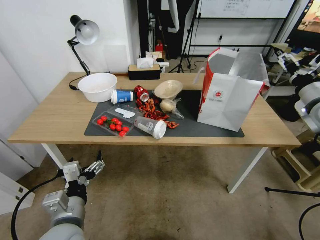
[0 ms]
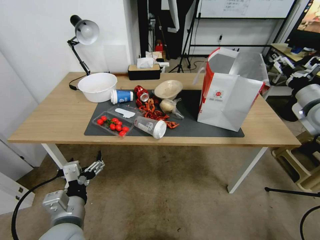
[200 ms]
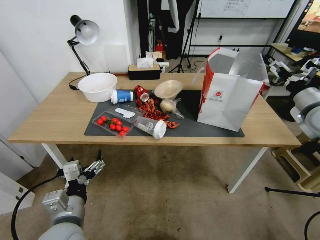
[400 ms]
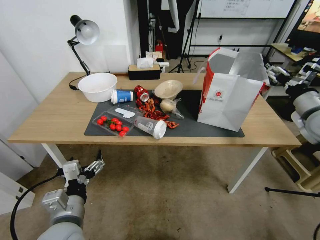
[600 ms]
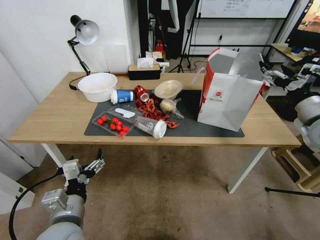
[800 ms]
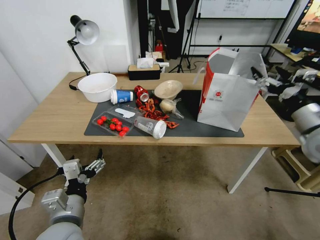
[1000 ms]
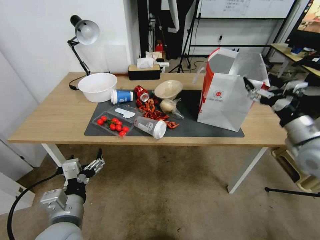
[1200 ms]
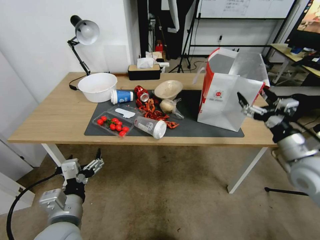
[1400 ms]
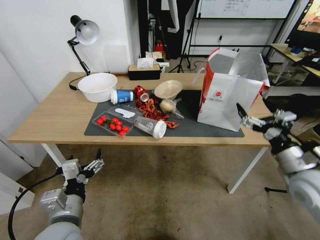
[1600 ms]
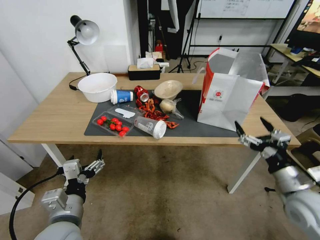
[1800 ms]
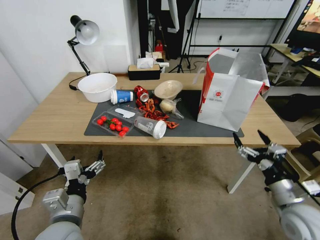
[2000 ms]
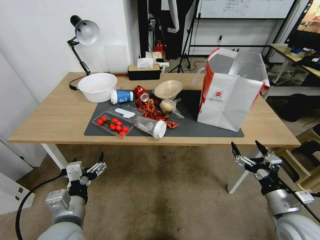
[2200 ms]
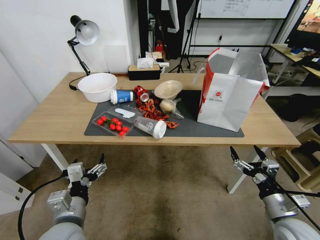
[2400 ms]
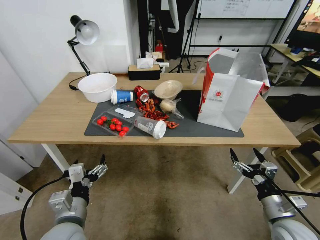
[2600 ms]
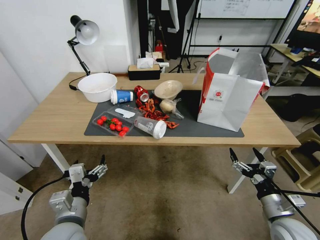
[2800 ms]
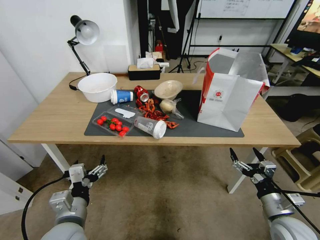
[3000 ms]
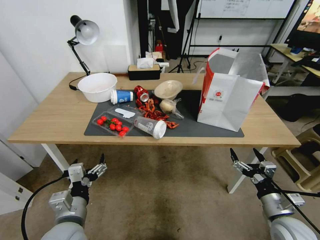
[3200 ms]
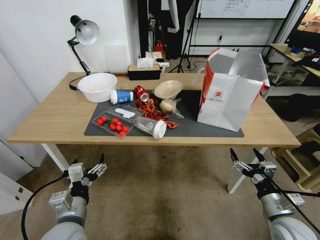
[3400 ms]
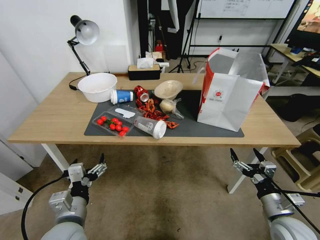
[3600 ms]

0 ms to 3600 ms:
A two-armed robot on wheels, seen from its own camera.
Task of the whole recording: Pick up the food delivery bag from the floor and place it on the table.
0 ms to 1800 ms: The right gripper moves backward, downward and to the left, approximately 25 cm.
1800 ms to 3600 ms: The right gripper heads downward, covering approximately 10 cm.

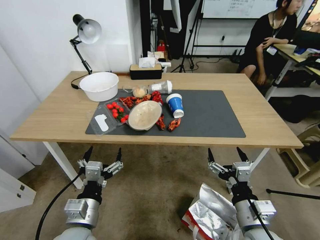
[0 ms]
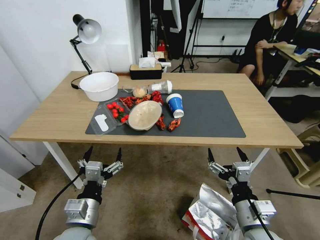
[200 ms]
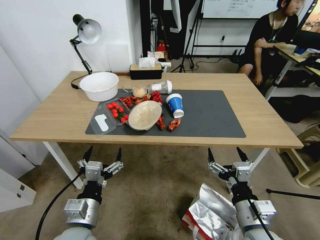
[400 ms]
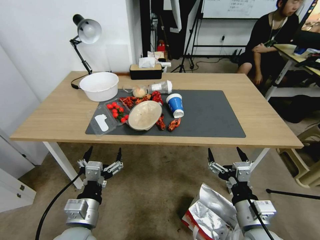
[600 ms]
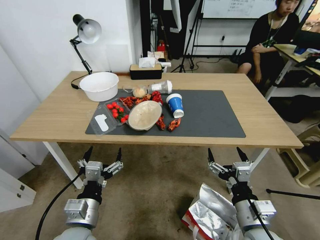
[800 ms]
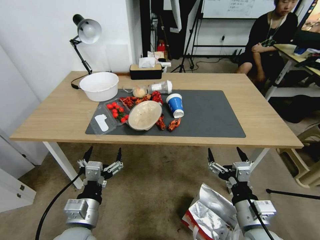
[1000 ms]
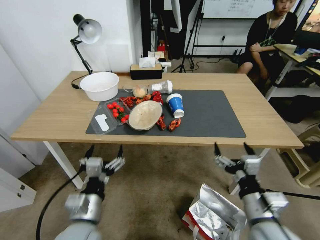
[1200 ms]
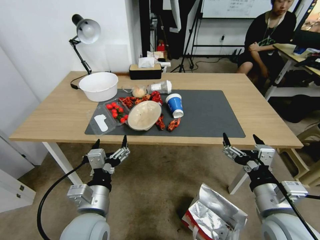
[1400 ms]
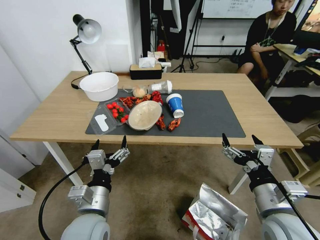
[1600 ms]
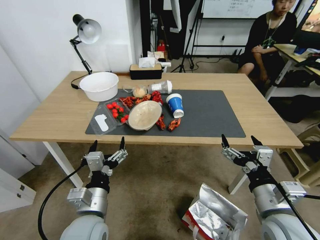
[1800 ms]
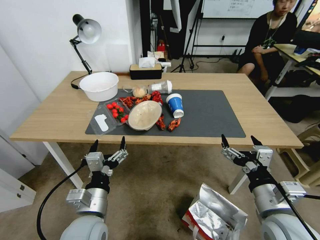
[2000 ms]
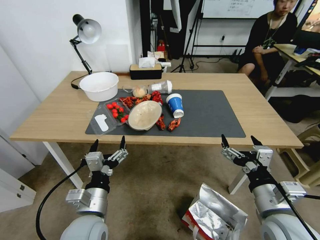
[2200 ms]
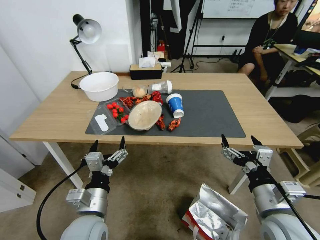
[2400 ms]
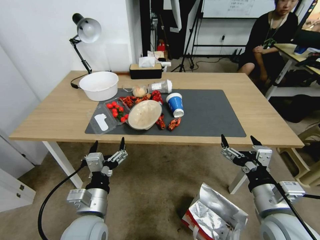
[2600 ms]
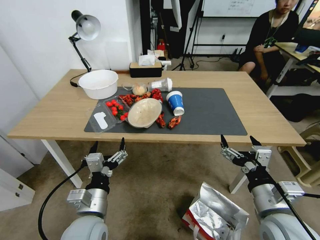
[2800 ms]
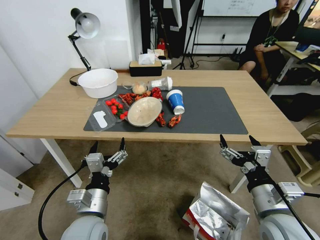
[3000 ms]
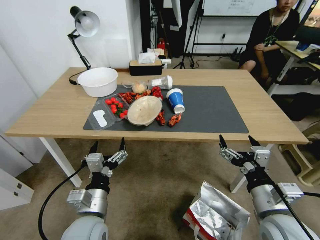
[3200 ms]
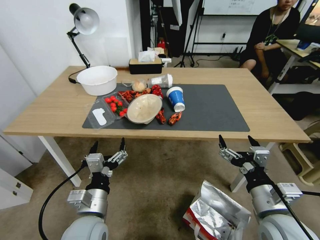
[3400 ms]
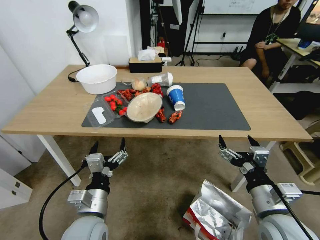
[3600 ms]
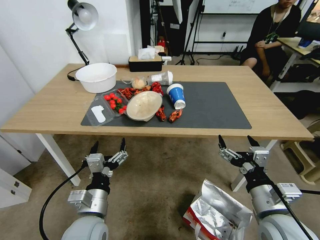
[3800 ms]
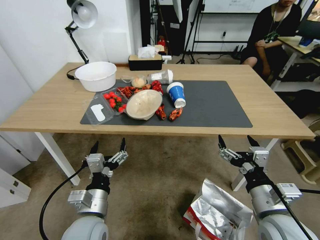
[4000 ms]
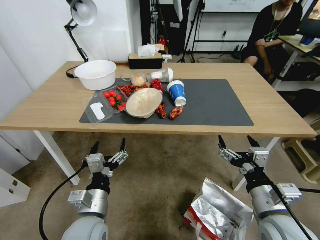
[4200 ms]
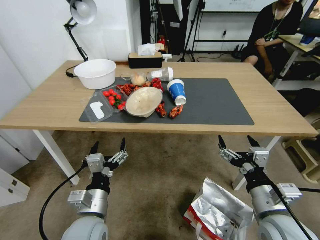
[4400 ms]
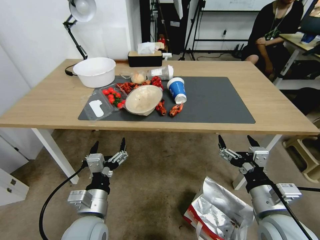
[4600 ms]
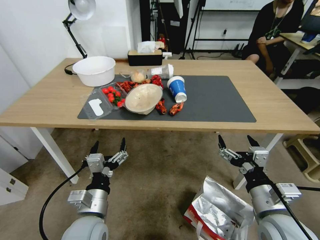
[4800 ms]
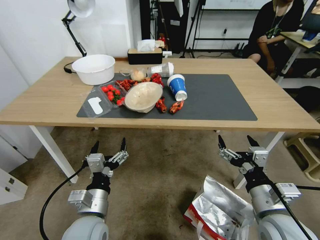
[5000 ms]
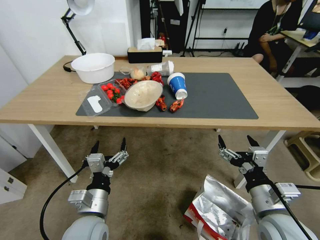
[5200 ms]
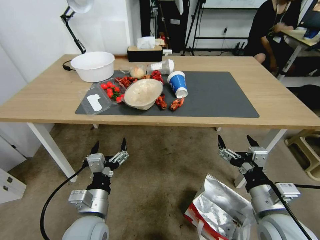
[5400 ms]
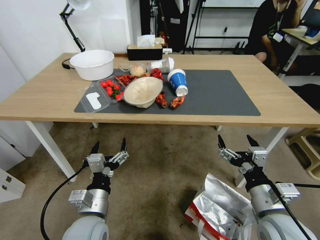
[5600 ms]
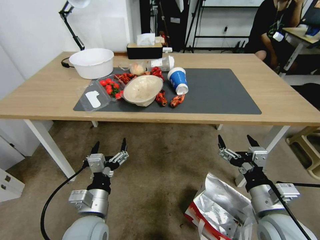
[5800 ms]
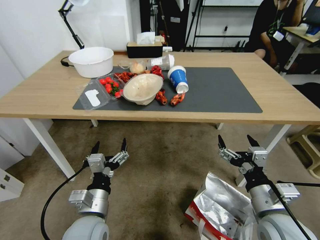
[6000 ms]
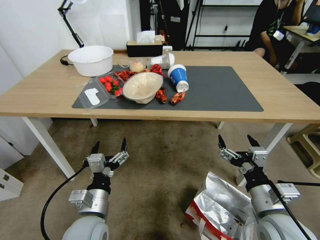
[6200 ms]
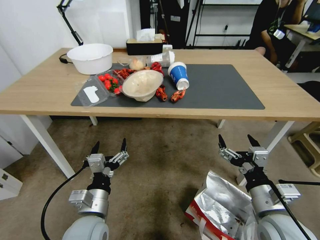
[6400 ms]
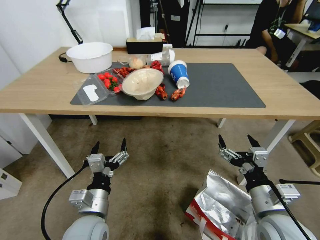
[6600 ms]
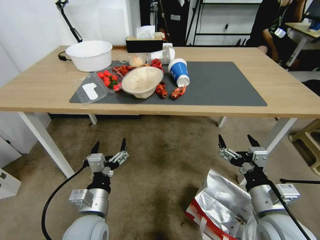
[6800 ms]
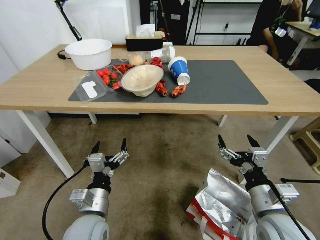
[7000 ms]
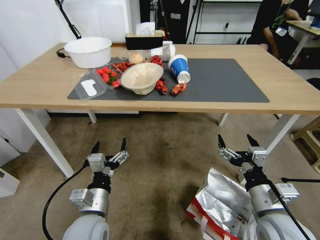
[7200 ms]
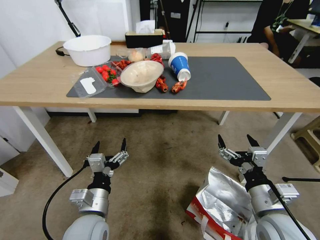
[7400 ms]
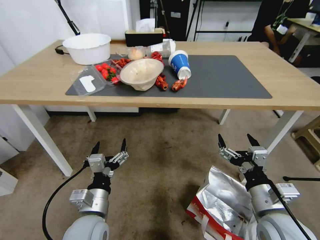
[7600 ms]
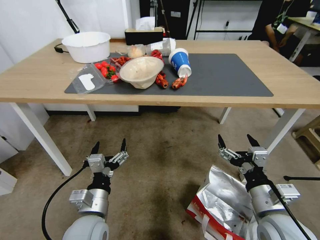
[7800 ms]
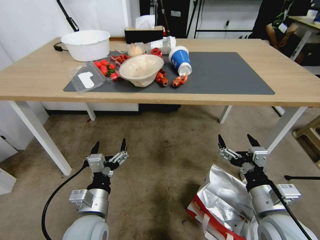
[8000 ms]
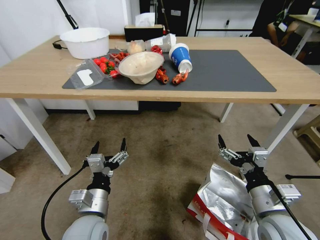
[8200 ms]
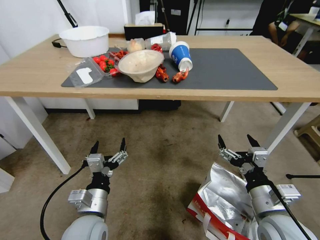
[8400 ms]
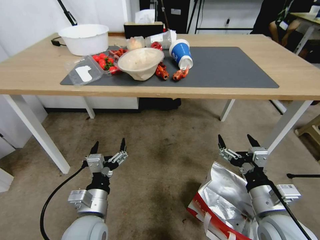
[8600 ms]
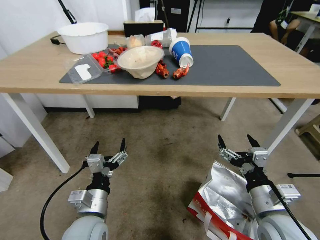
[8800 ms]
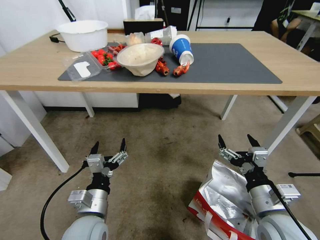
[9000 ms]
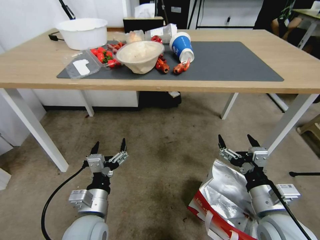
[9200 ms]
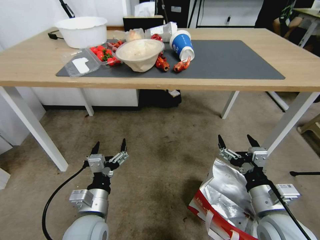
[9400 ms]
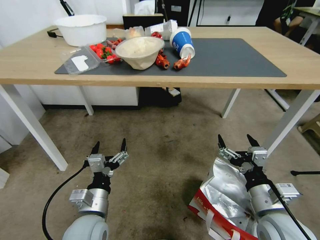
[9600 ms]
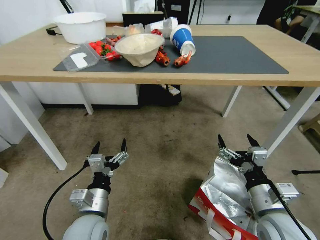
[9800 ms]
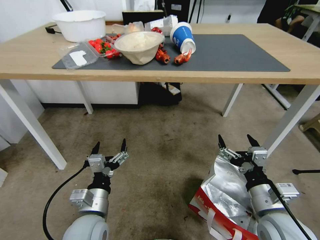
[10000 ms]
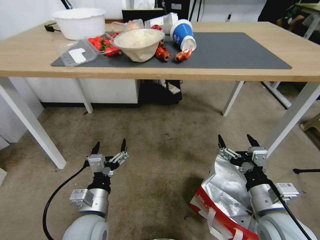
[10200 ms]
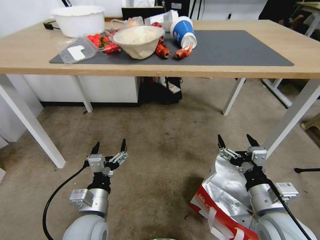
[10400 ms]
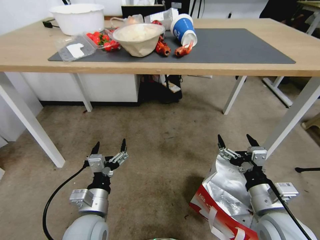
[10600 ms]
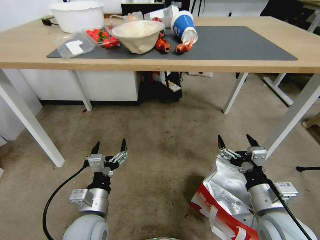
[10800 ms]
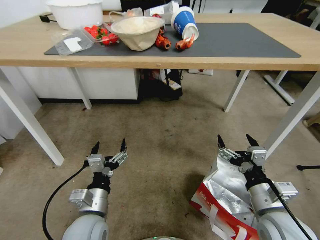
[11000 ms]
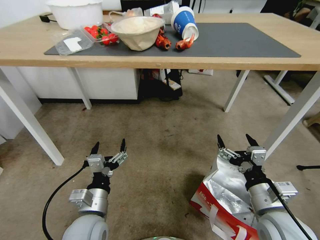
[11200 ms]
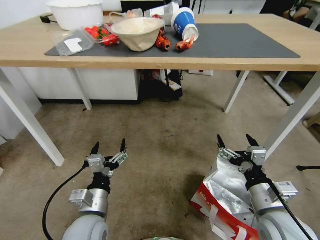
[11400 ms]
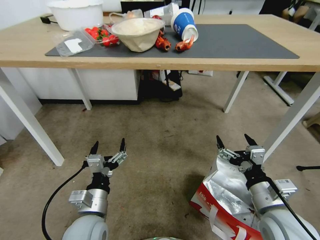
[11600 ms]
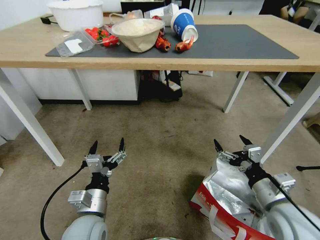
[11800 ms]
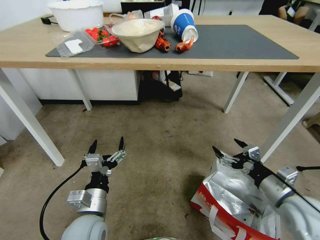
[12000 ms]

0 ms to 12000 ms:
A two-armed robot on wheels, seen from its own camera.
Task of the whole recording: Pick up the food delivery bag from the floor and place it on the table.
10400 ms to 12000 ms: The right gripper moves to the right, approximately 5 cm.

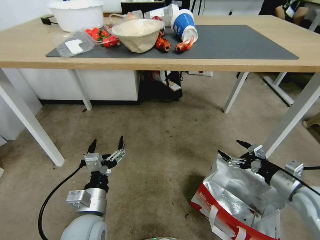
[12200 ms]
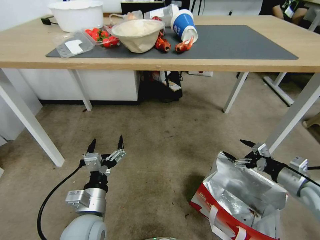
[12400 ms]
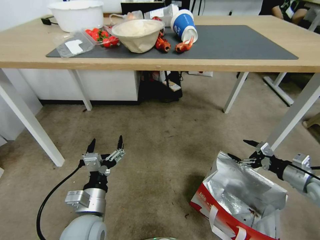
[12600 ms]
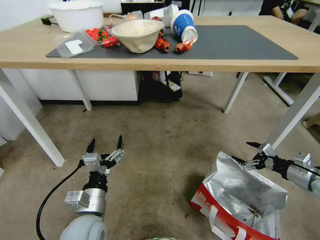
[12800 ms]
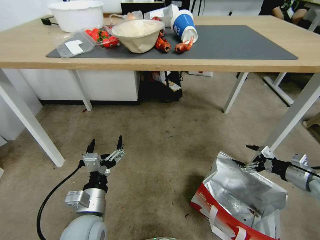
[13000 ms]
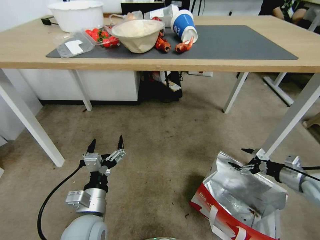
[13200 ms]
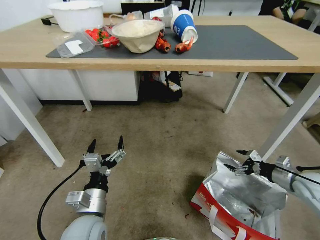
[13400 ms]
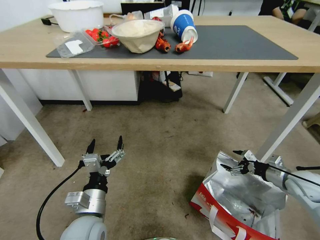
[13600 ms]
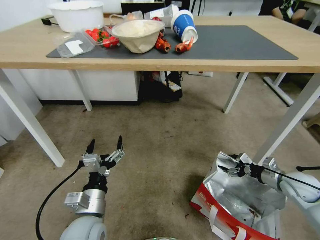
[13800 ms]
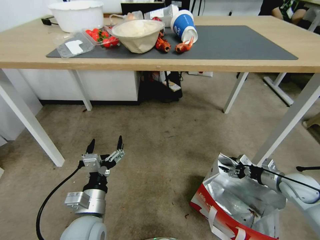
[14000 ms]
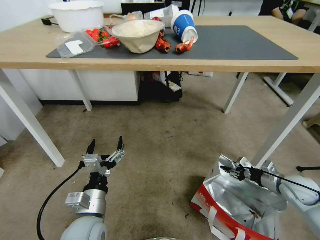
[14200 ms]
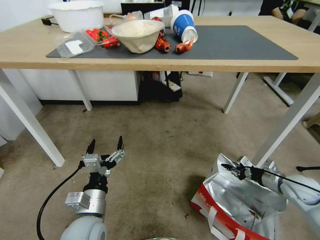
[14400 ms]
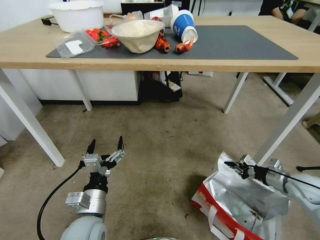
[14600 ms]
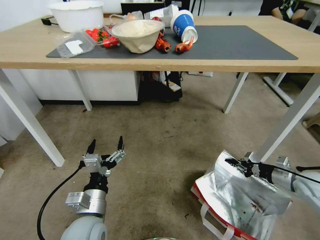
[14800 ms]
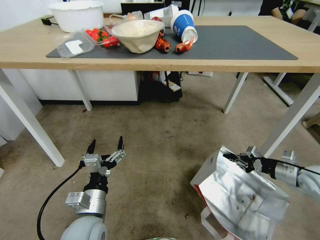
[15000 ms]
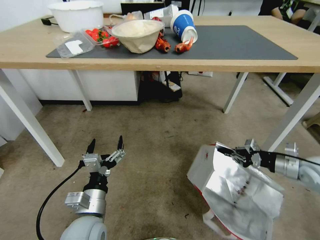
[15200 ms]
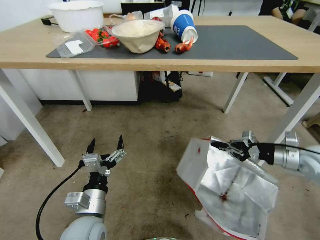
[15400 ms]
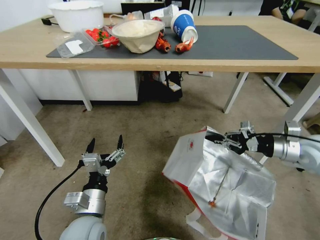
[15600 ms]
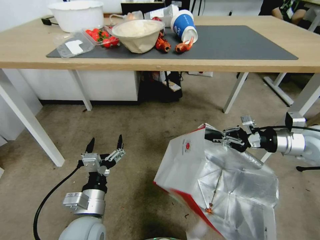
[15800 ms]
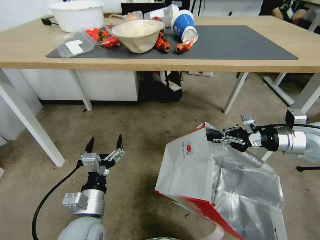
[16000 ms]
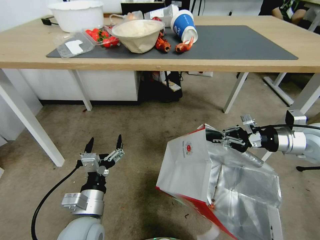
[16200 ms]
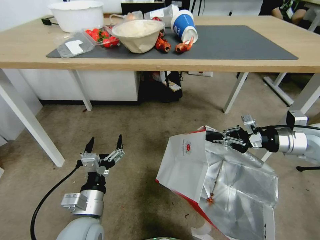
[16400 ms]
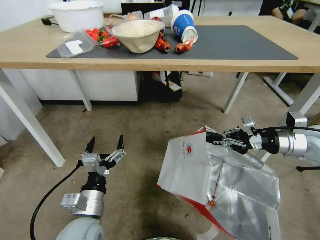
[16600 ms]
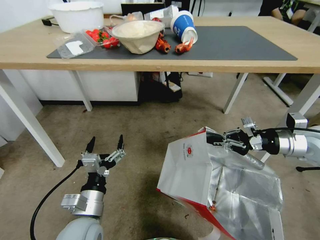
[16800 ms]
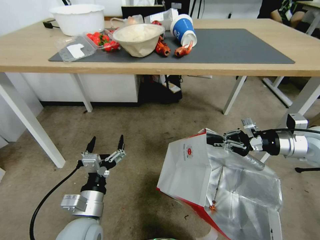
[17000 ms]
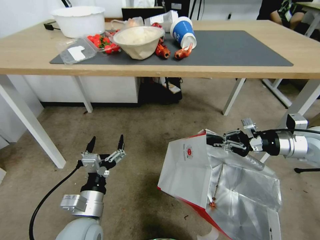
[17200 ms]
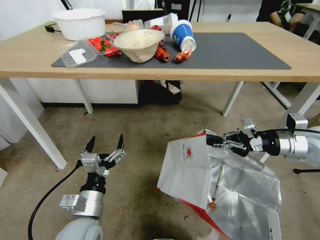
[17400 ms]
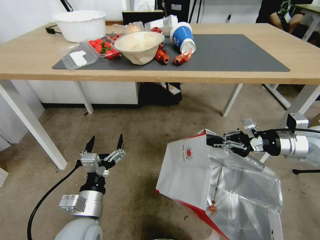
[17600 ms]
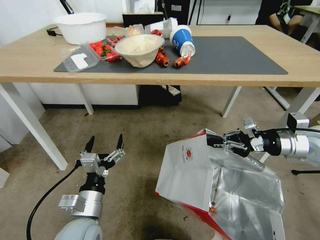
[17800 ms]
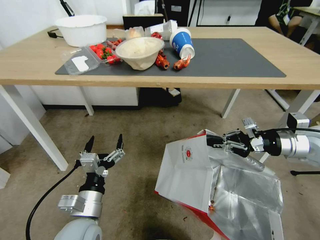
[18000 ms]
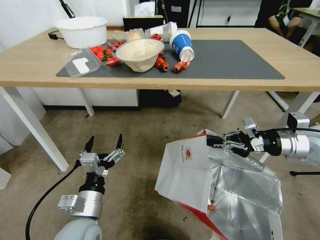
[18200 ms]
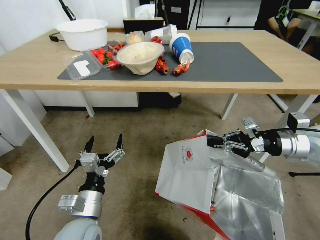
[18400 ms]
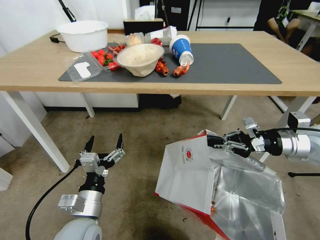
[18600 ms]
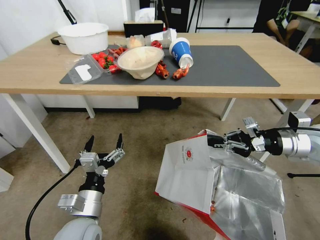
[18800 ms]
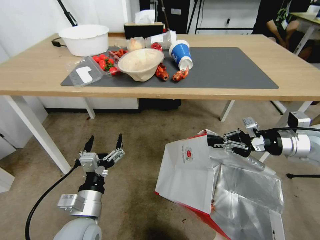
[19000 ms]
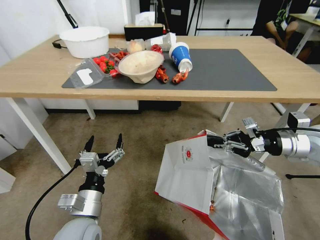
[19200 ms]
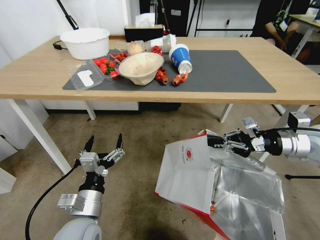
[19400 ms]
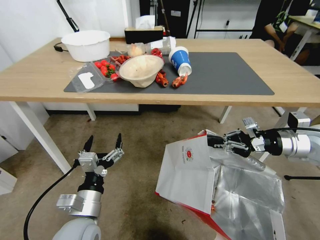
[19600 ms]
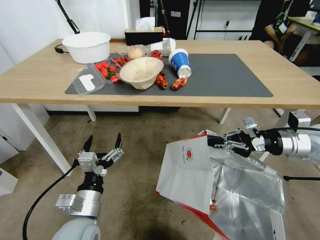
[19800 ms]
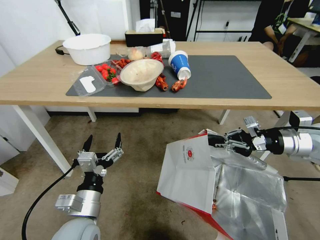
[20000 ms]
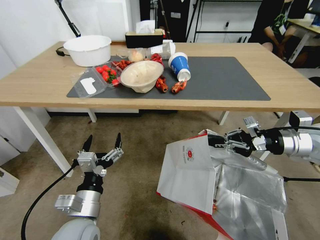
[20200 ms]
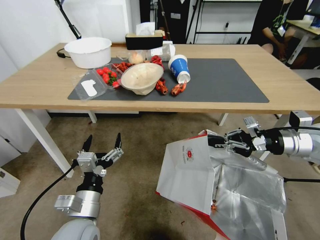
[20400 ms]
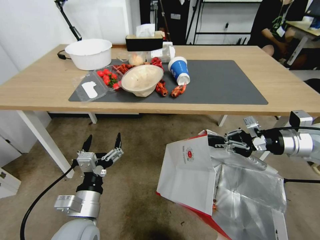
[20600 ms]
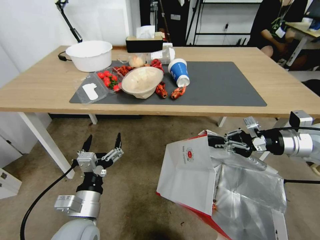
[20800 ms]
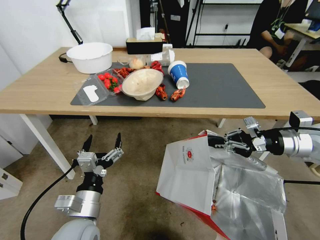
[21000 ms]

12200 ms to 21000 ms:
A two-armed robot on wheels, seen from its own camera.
Task of the whole recording: Pick up the food delivery bag from the floor and place it on the table.
12200 ms to 13600 ms: The right gripper moves forward, to the right and downward, some 15 cm.
13600 ms to 15200 ms: The right gripper ends up approximately 5 cm from where it was, and closes its fingers.
15200 ms to 16600 ms: The right gripper shifts approximately 15 cm upward and to the left.
